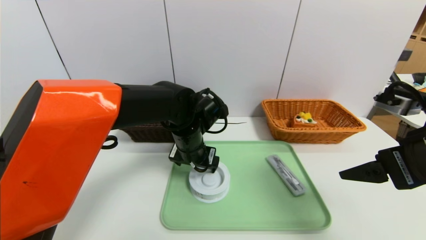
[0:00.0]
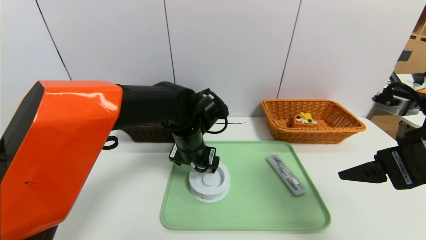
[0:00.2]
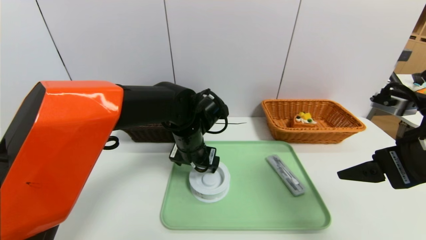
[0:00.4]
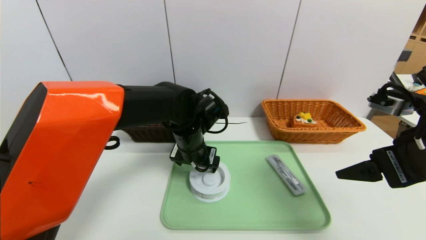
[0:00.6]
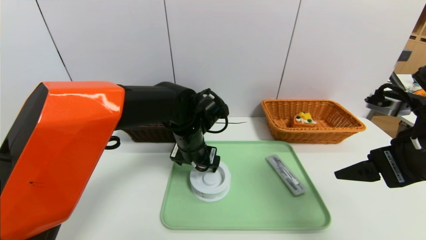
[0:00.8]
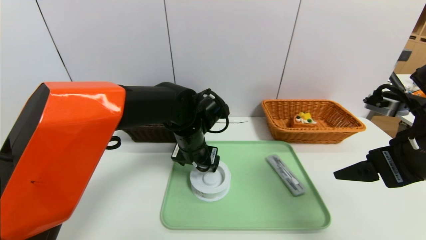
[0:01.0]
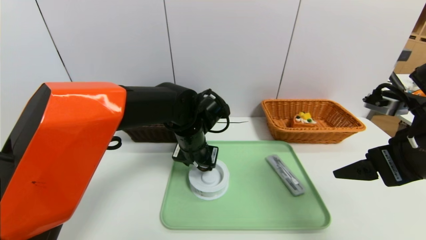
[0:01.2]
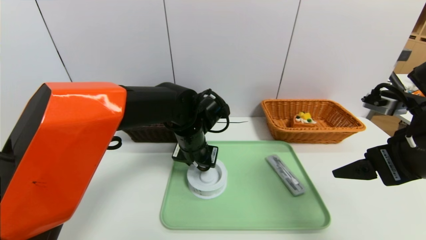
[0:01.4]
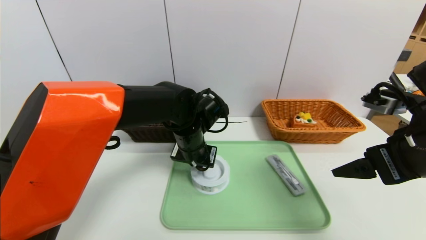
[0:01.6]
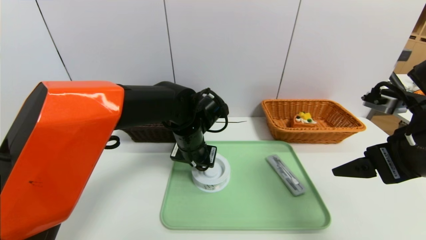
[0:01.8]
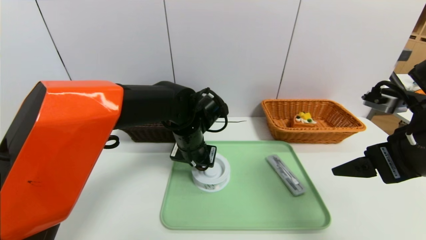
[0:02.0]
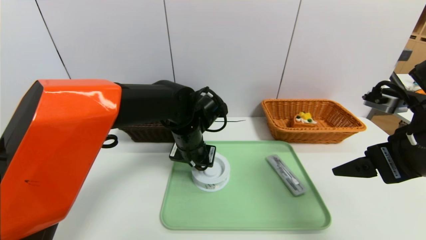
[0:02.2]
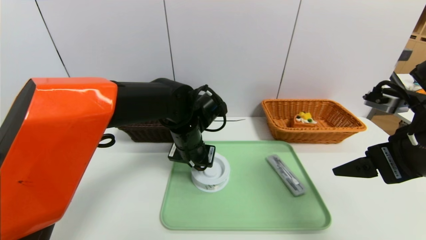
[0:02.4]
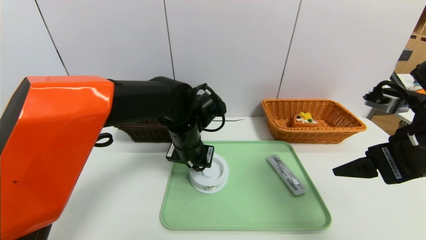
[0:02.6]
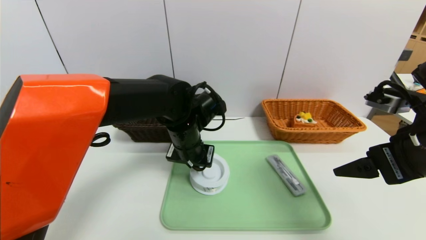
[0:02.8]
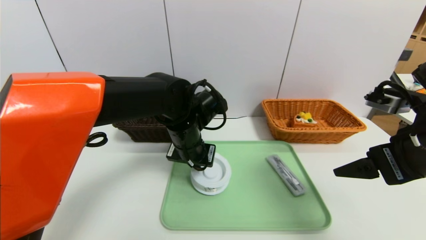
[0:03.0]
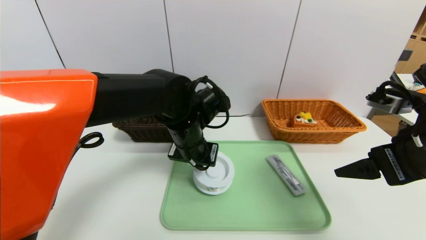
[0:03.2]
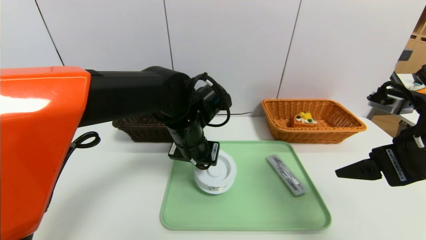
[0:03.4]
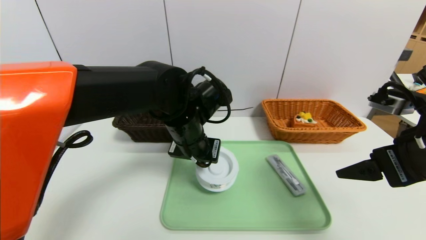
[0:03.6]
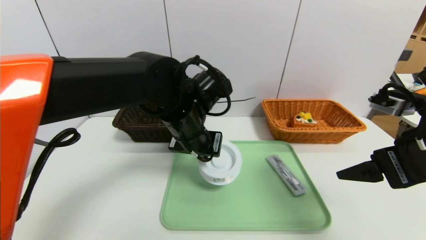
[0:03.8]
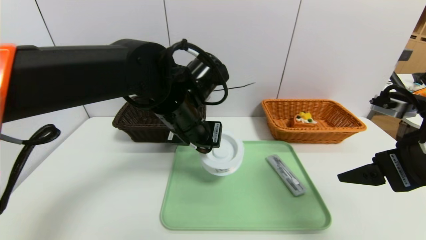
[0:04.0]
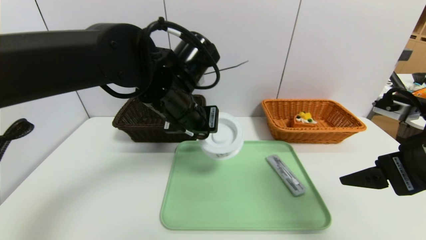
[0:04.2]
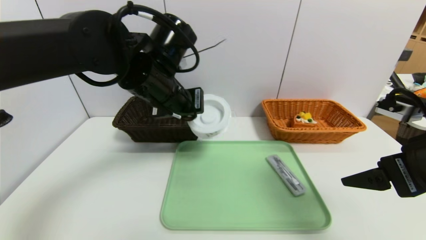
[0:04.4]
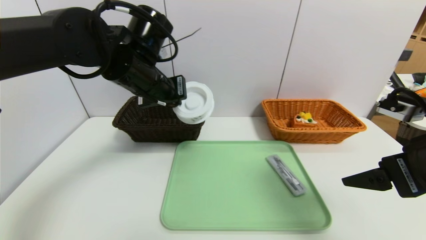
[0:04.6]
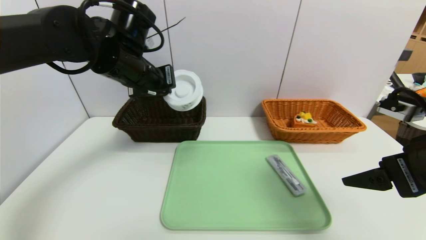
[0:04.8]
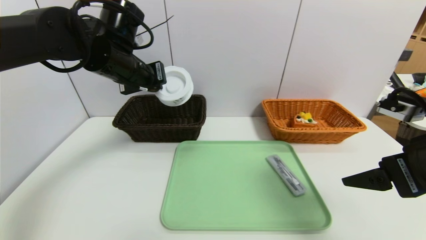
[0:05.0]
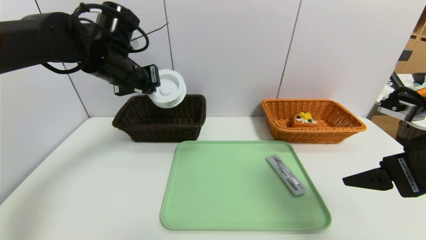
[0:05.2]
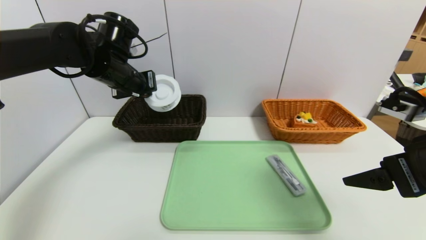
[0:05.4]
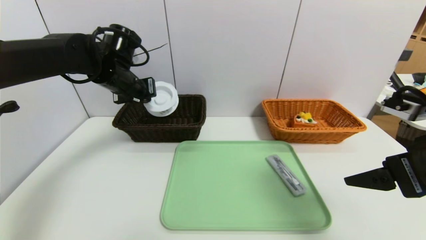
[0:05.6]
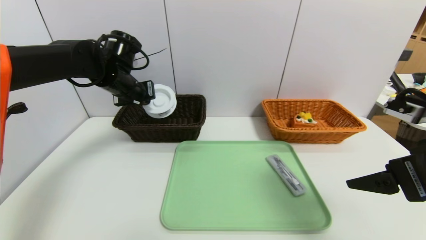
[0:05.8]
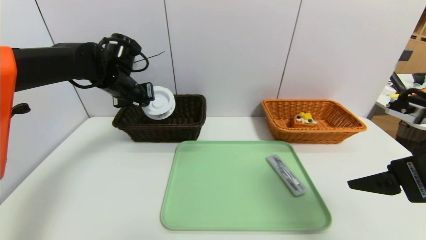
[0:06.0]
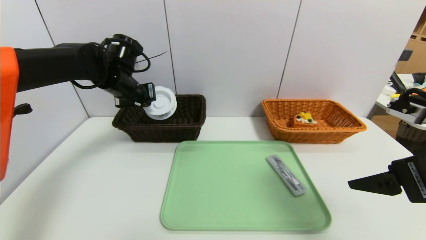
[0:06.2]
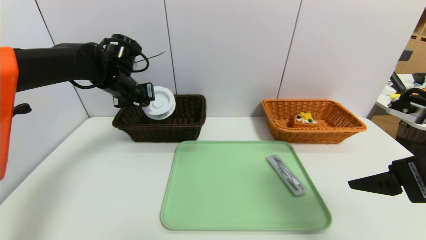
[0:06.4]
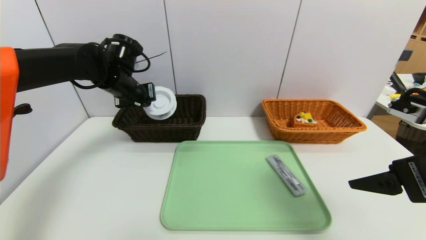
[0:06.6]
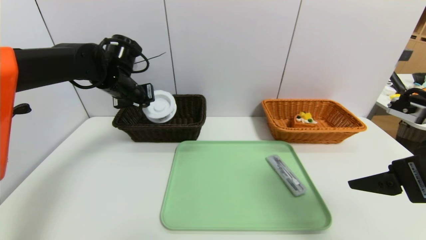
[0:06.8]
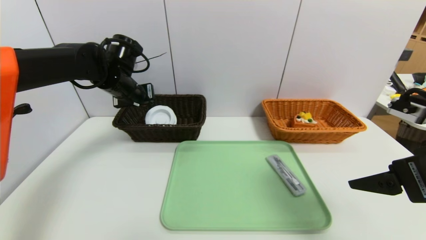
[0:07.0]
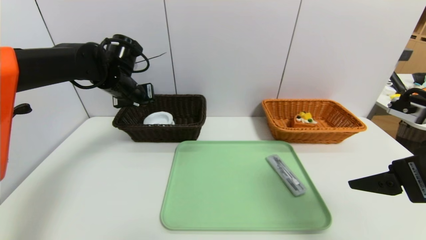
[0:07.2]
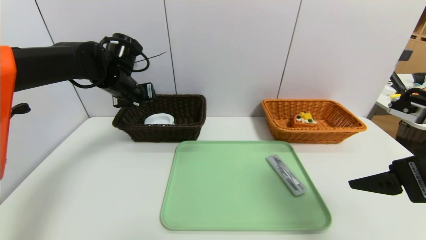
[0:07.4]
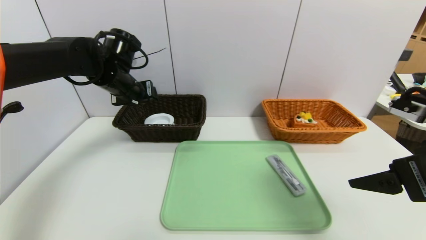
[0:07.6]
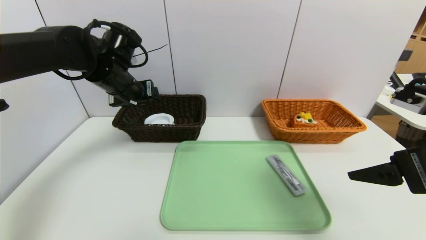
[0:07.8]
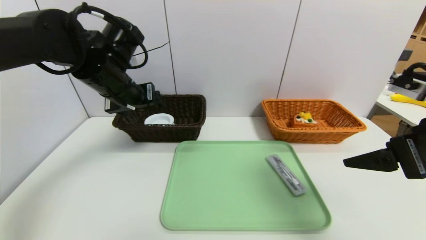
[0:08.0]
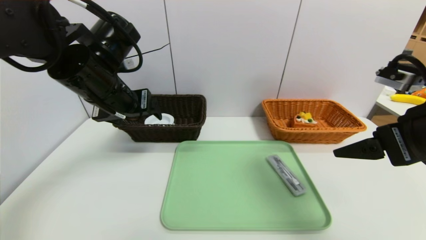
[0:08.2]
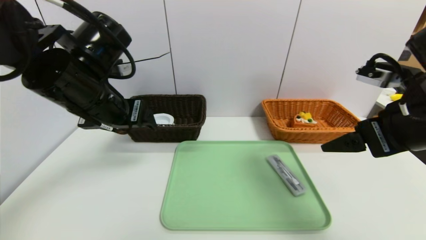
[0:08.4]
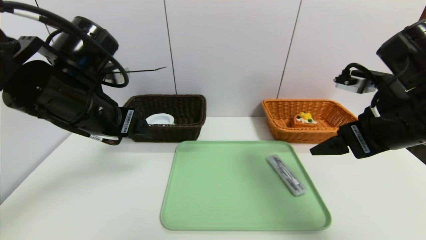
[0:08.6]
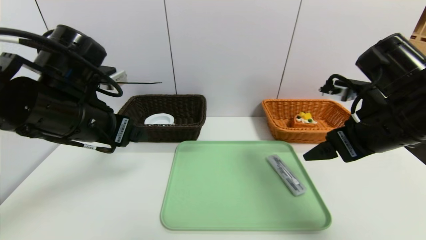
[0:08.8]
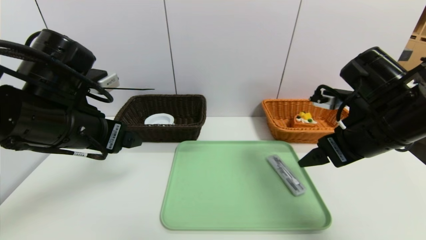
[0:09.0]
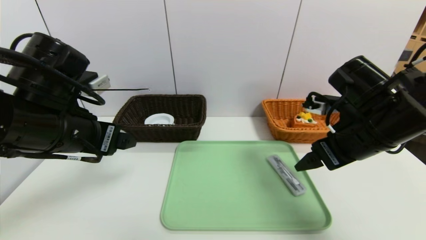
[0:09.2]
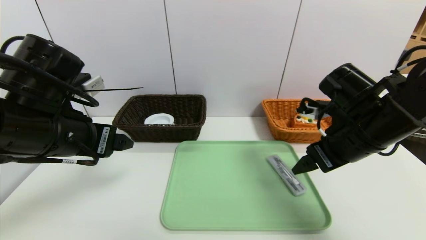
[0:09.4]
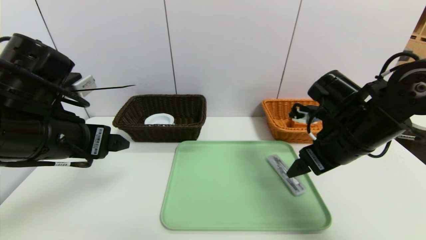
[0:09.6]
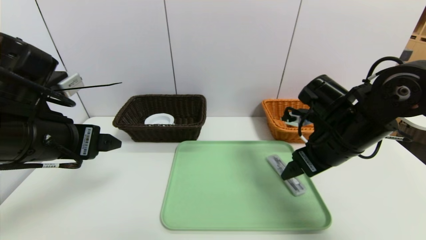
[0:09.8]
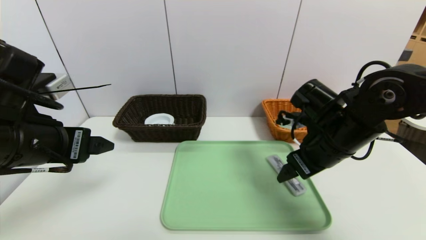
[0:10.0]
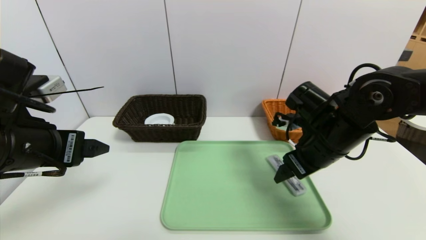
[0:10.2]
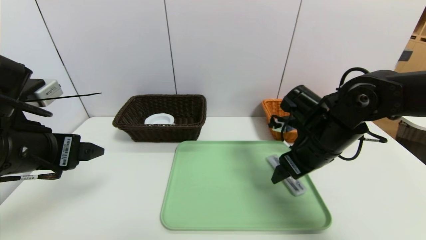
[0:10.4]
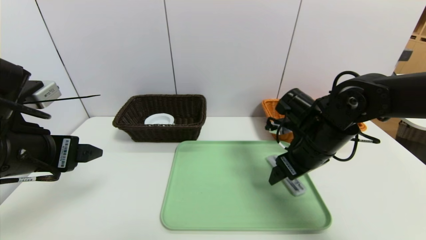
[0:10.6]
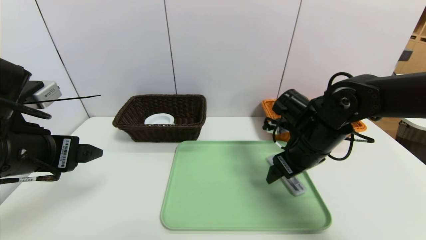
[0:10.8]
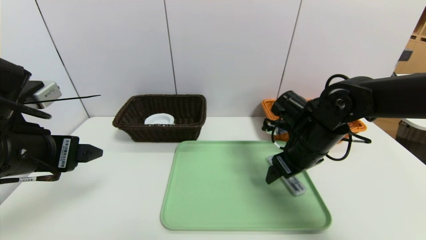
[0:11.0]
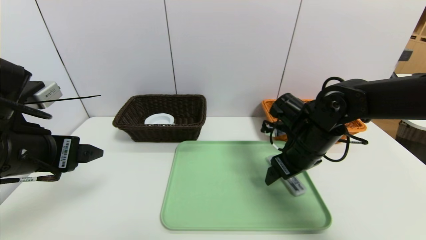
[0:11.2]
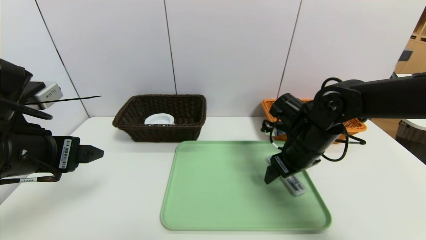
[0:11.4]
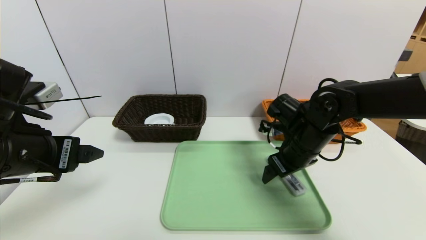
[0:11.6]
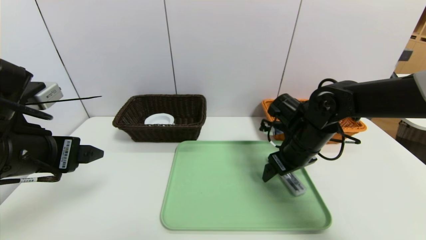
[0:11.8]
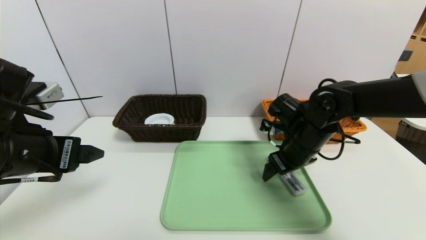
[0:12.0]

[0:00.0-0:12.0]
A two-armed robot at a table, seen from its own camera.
Task of the whole recording: place the food in the right basket with the right gripper, and place the non food items in the left basket with the left gripper.
Step, 0:00.0 to 0:07.2: Grasp the tape and put it in the left basket.
0:00.0 to 0:01.6: The left gripper closes up.
0:01.6 to 0:03.0: The grippers move only a little.
0:03.0 to 0:04.4: The left gripper goes some 10 cm upward.
0:04.4 to 0:06.0: The left gripper goes roughly 15 cm to the left and forward.
0:06.0 to 0:07.6: The left gripper opens.
0:07.6 to 0:09.0: The left gripper heads backward, covering approximately 20 cm, while the right gripper shifts roughly 10 cm forward.
0:09.0 to 0:10.4: The right gripper moves downward, roughly 5 cm. The left gripper shifts by roughly 5 cm.
0:10.4 to 0:12.0: The grippers move only a little.

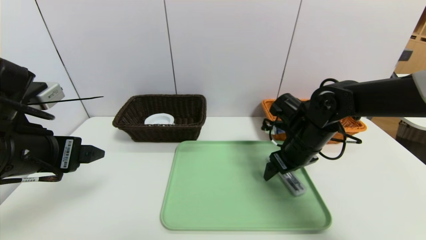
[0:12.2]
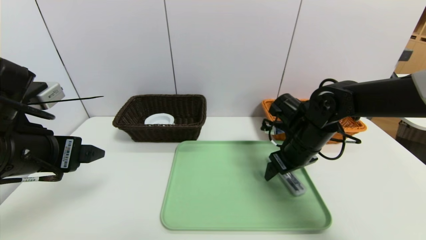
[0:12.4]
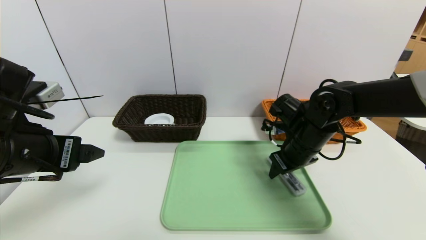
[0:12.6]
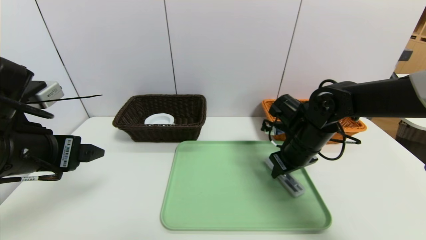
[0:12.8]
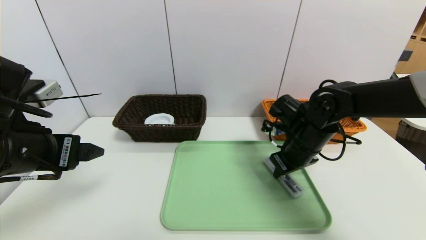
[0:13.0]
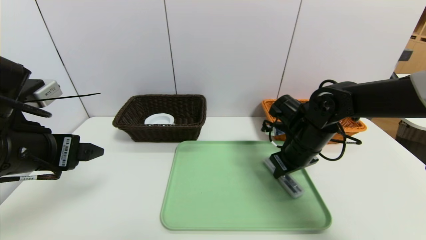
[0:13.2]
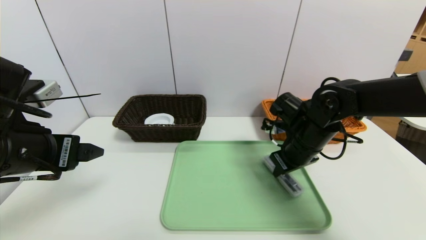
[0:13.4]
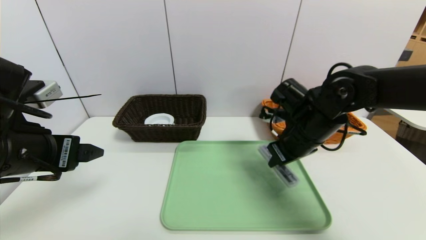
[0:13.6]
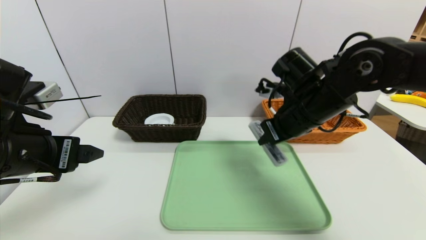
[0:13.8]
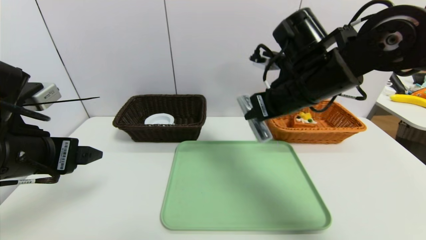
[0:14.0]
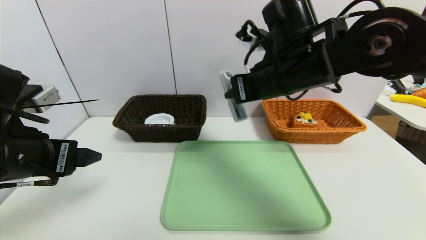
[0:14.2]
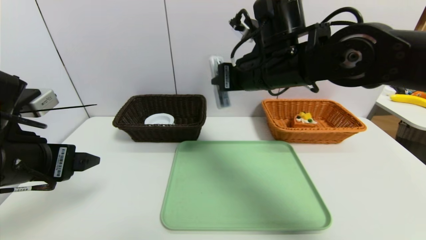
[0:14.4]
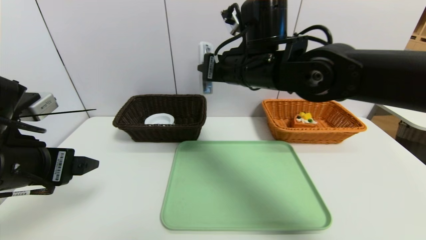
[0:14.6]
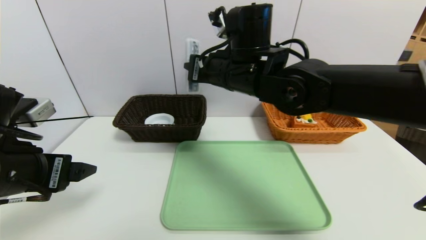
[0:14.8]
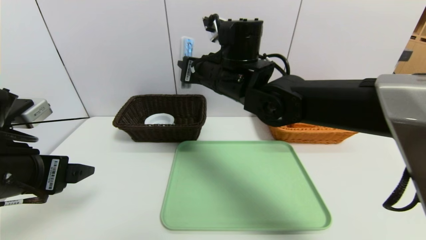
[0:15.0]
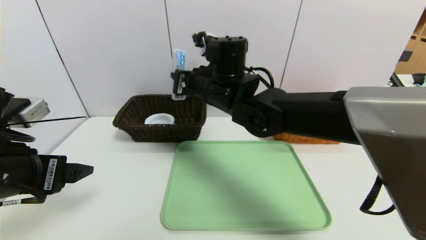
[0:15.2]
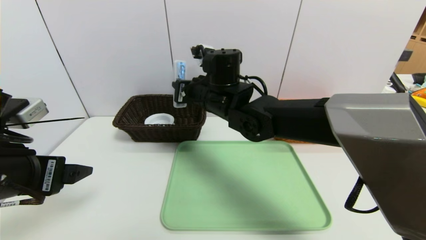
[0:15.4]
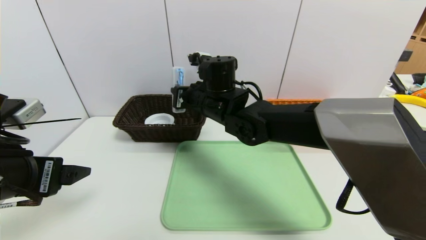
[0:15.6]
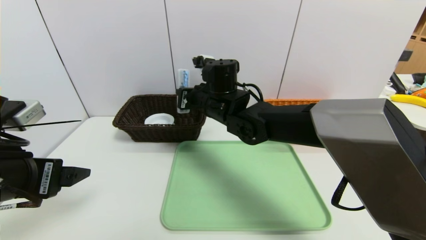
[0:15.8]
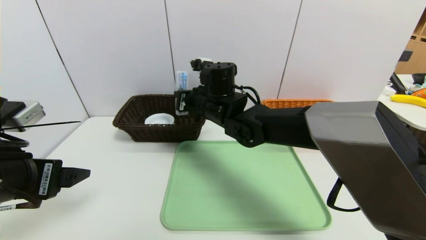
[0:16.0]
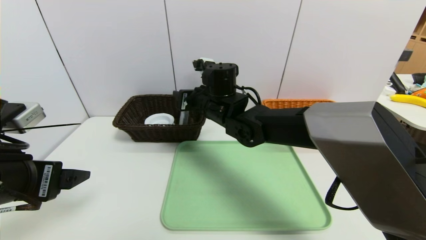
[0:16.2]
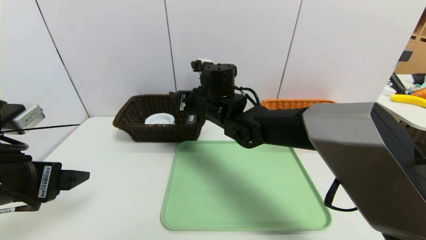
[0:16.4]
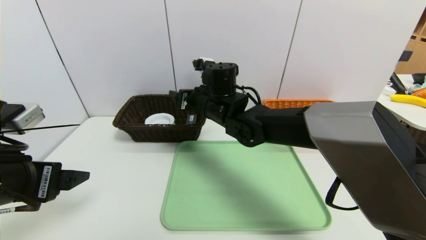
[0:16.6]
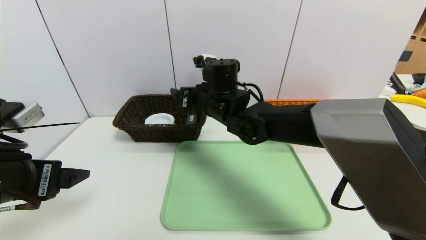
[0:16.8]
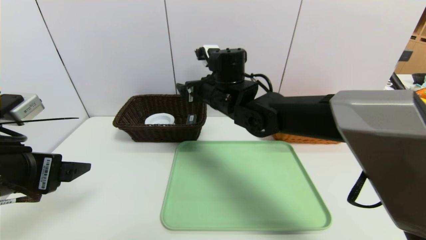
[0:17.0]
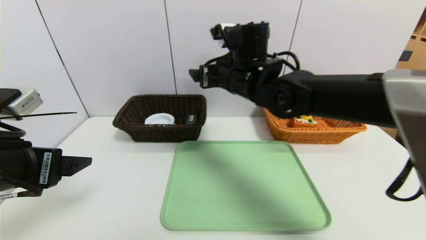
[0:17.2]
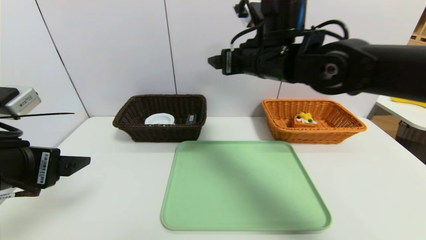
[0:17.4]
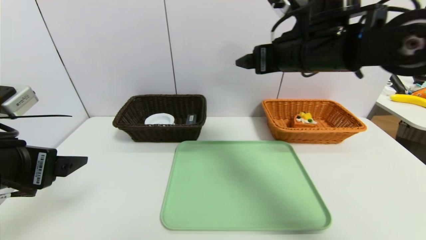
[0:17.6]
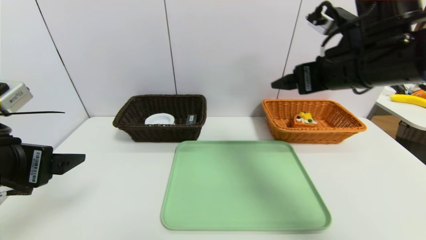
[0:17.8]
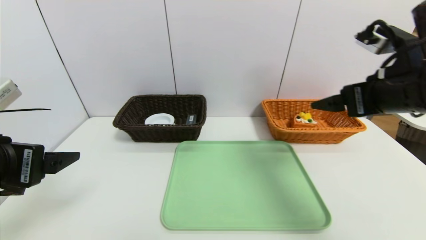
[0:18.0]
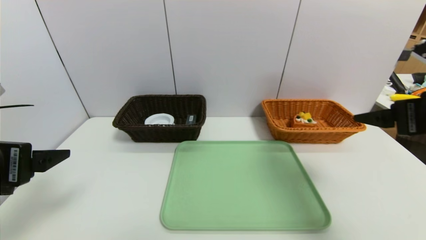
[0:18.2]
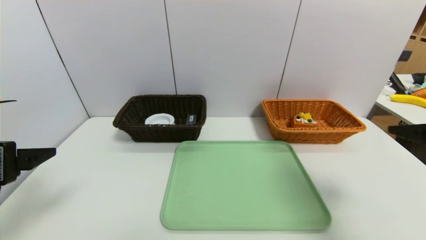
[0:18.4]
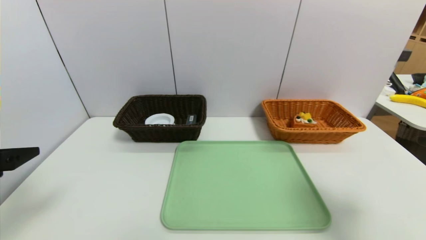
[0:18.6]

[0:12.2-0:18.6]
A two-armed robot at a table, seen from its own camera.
Task of the whole recording: place the food in the right basket with the right gripper, and place the non food items in the left basket with the left gripper.
0:12.2 to 0:13.8: The right gripper moves upward, roughly 10 cm, and closes its fingers.
0:13.8 to 0:15.4: The right gripper moves to the left, some 15 cm.
0:15.4 to 0:17.0: The right gripper opens up.
0:17.0 to 0:18.6: The right gripper heads to the right and backward, covering approximately 40 cm. The left gripper ends up approximately 5 cm from where it was.
